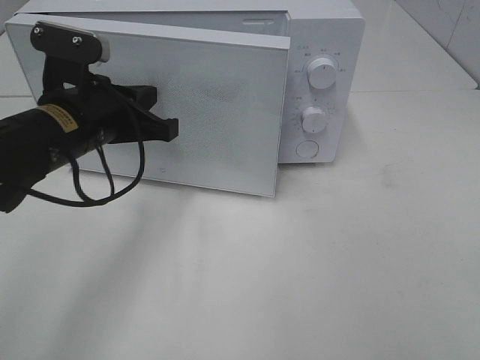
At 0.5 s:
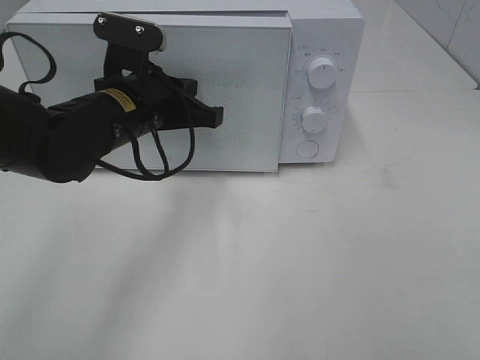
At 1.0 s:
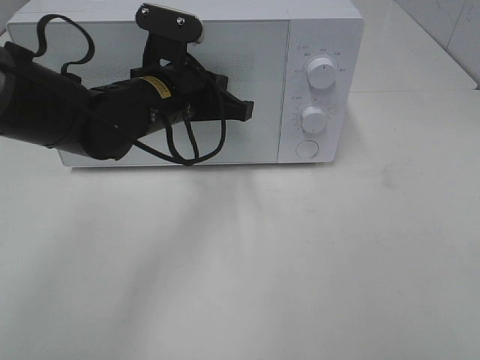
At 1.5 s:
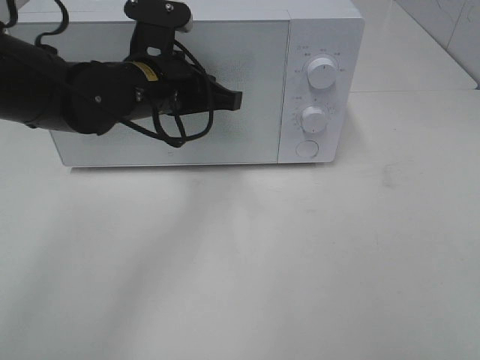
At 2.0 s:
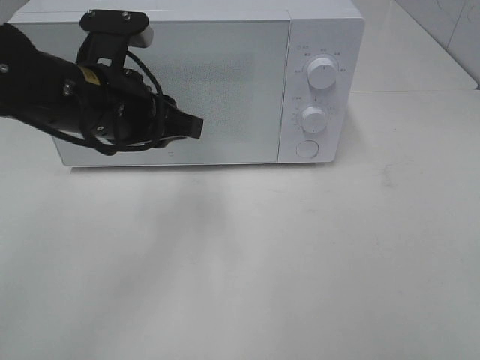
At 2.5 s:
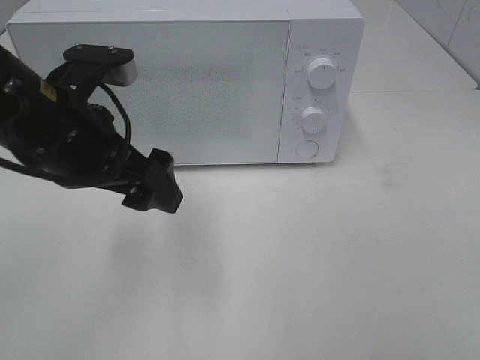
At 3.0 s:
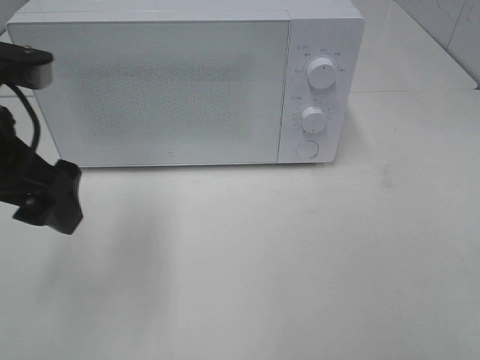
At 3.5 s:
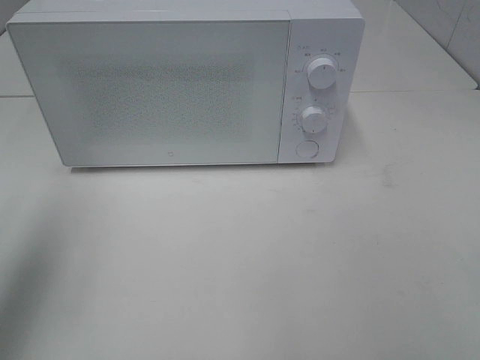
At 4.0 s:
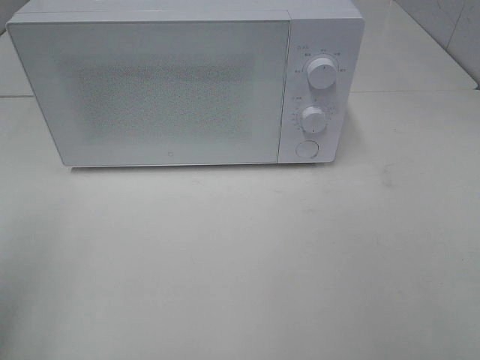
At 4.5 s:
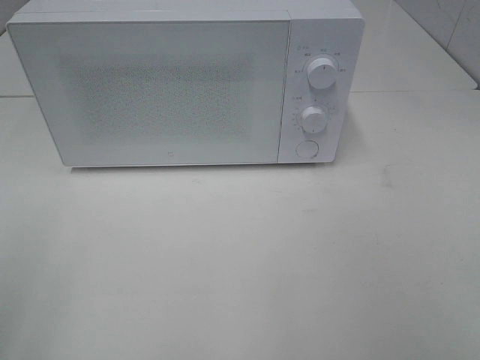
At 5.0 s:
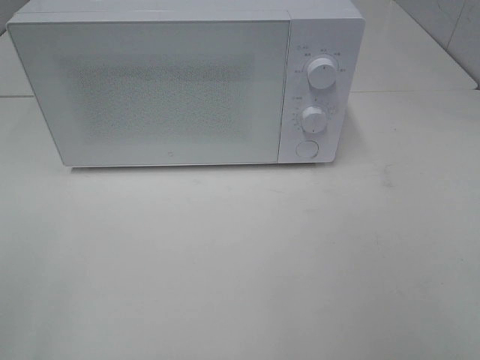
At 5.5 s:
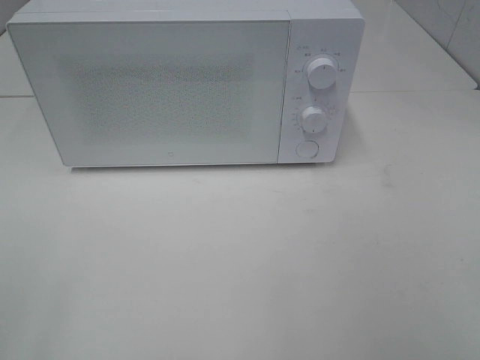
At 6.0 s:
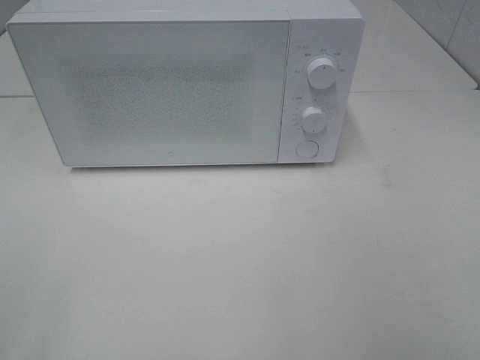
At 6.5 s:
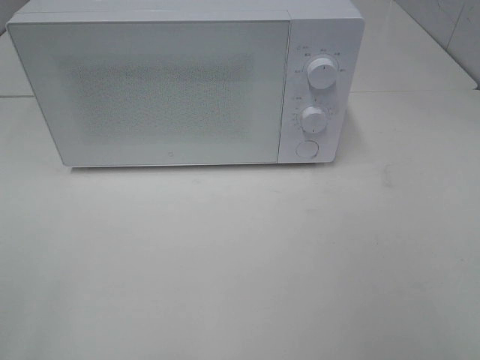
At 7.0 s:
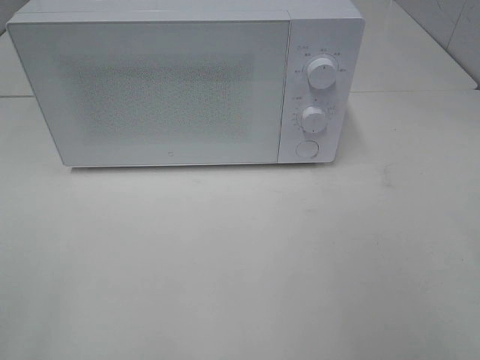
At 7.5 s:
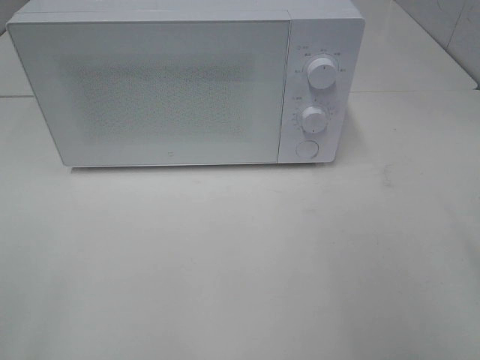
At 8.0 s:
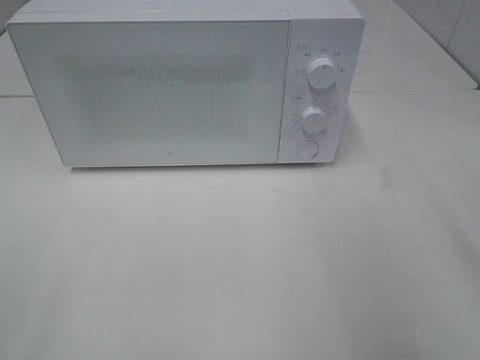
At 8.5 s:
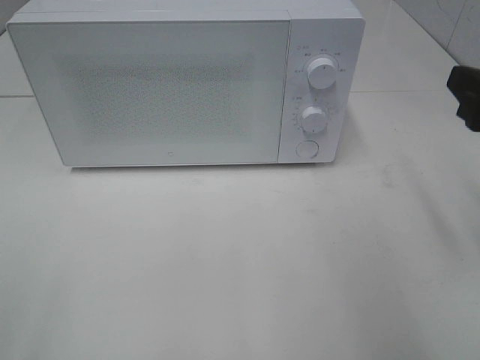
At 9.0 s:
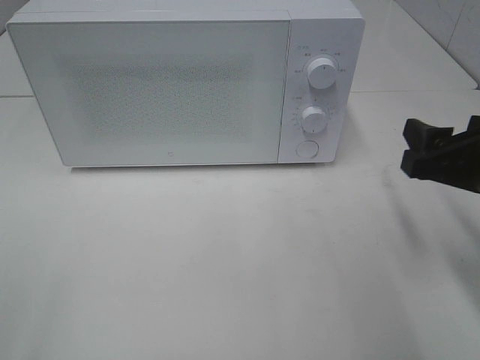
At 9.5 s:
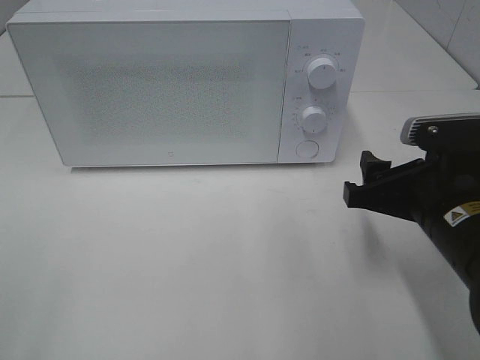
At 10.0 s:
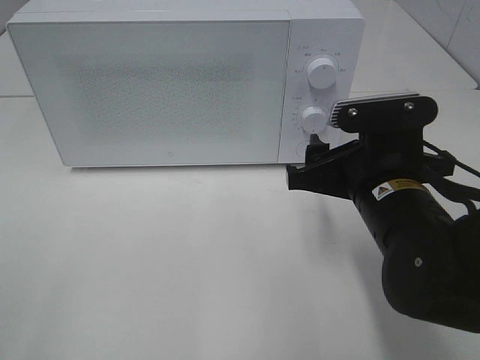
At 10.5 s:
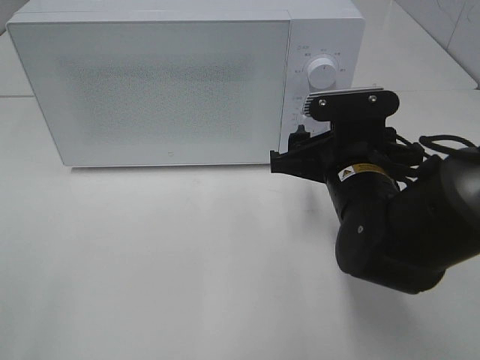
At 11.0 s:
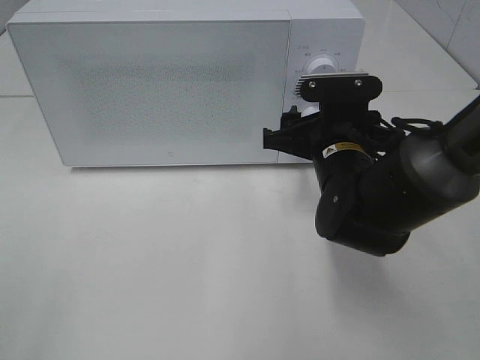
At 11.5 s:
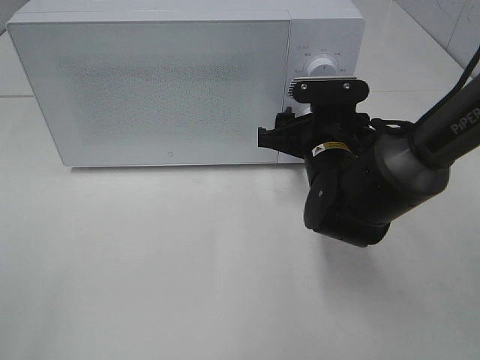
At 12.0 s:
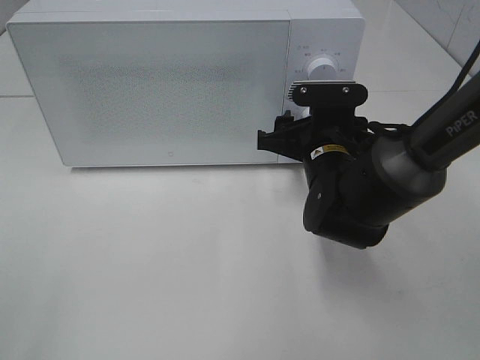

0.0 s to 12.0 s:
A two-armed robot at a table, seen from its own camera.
Task of the whole recording: Heat the burger.
0.0 to 2.0 s: The left gripper opens its fingers.
2.0 to 4.0 s: The left gripper travels to the left and backward by roughly 25 cm, and opens.
8.0 to 10.0 s: The right gripper goes roughly 20 cm to the left, downward and forward.
10.0 to 12.0 s: The right gripper shifts some 10 cm forward.

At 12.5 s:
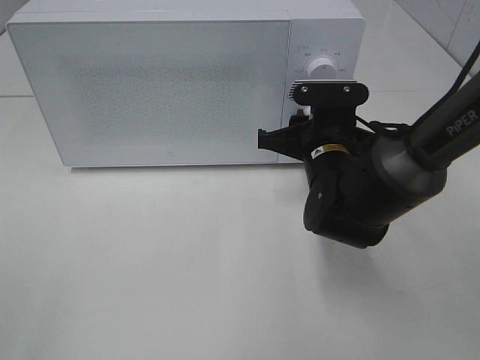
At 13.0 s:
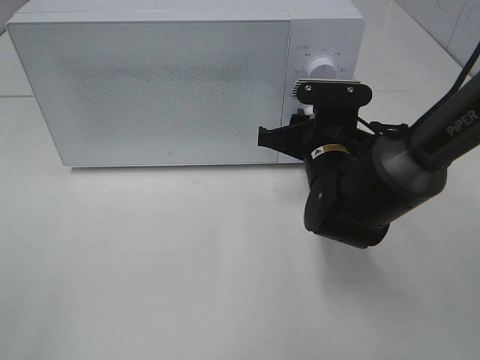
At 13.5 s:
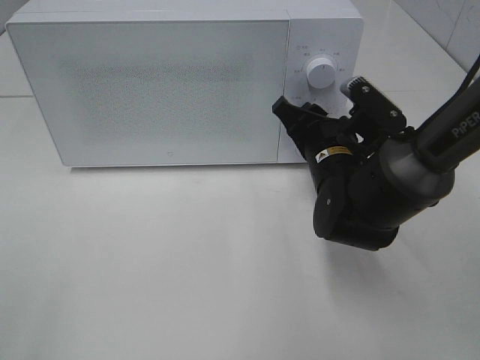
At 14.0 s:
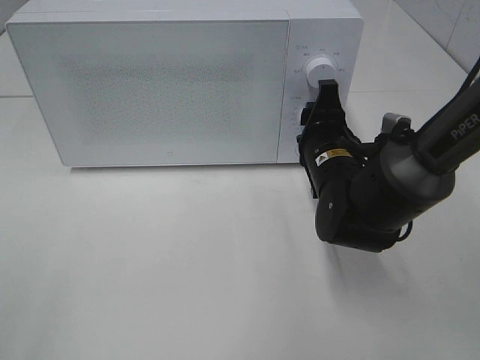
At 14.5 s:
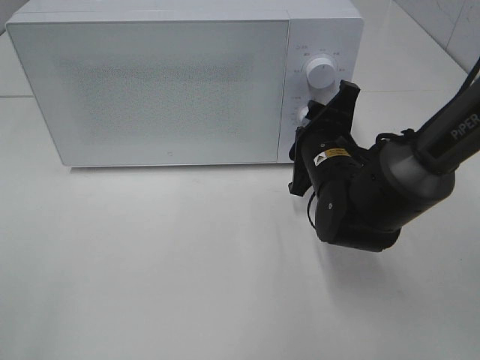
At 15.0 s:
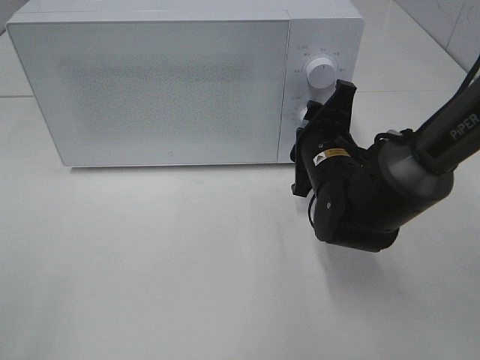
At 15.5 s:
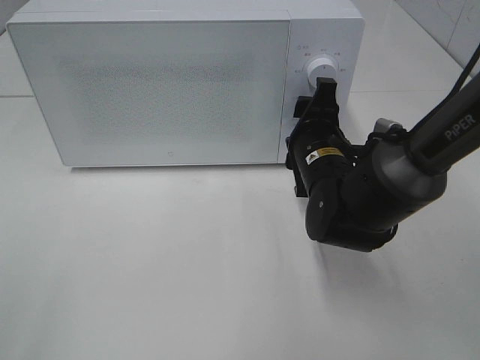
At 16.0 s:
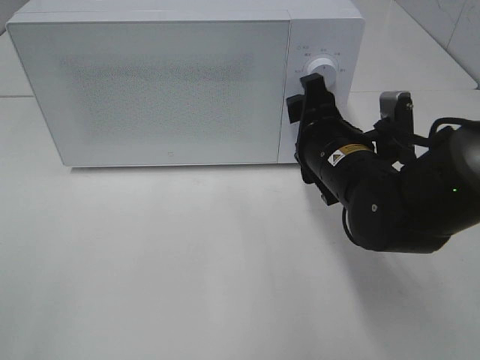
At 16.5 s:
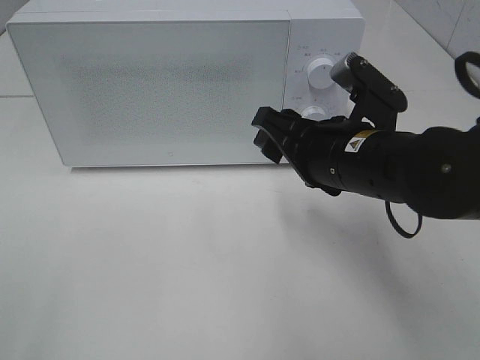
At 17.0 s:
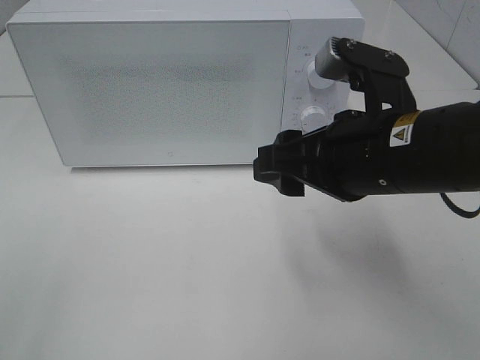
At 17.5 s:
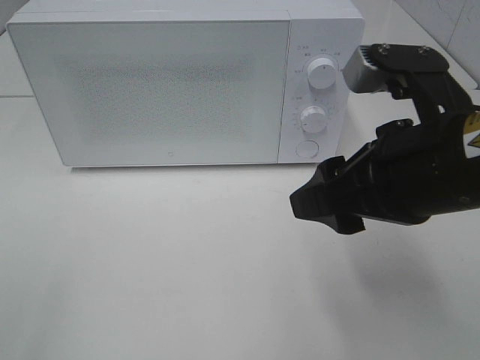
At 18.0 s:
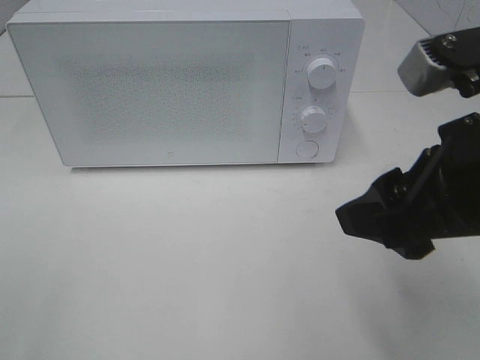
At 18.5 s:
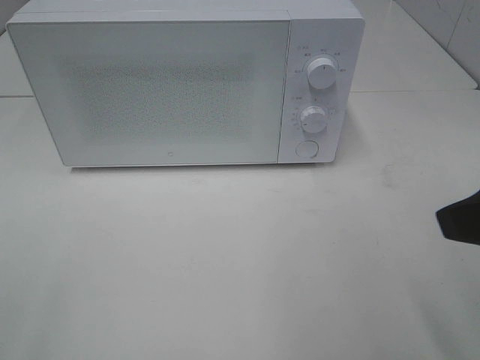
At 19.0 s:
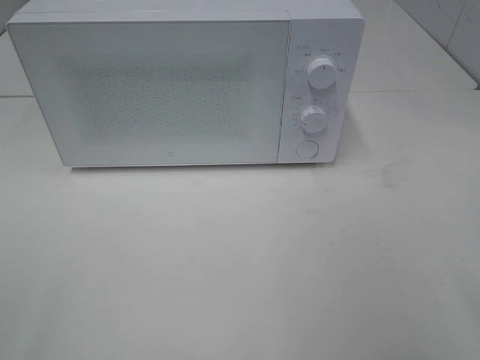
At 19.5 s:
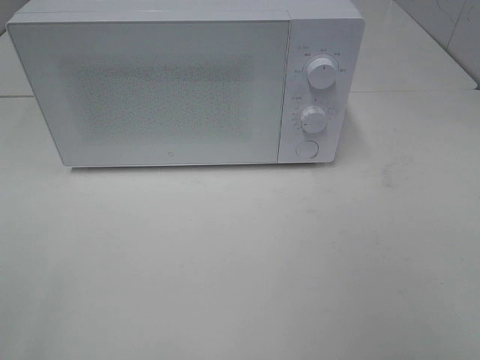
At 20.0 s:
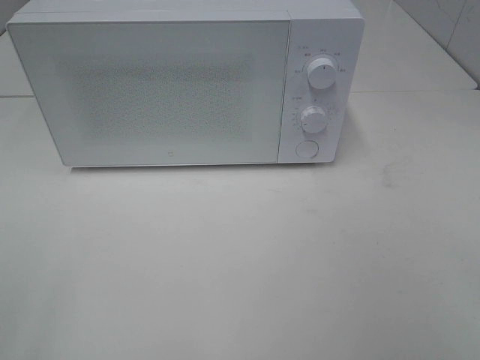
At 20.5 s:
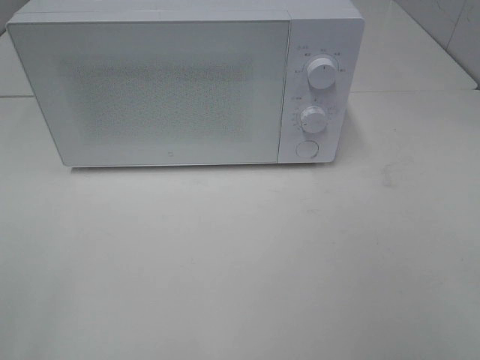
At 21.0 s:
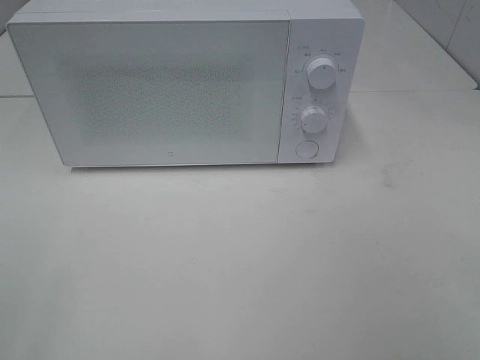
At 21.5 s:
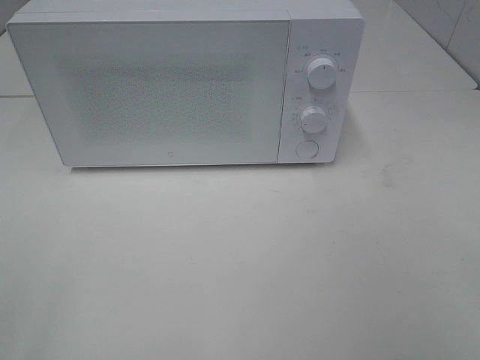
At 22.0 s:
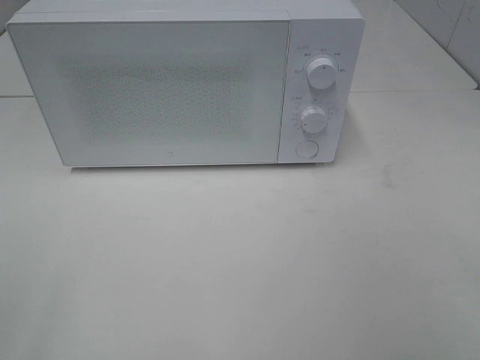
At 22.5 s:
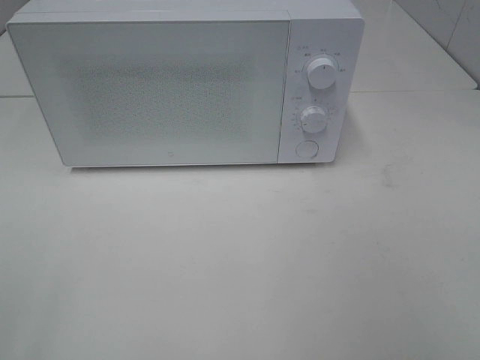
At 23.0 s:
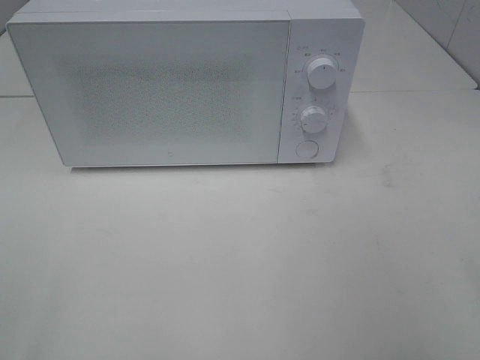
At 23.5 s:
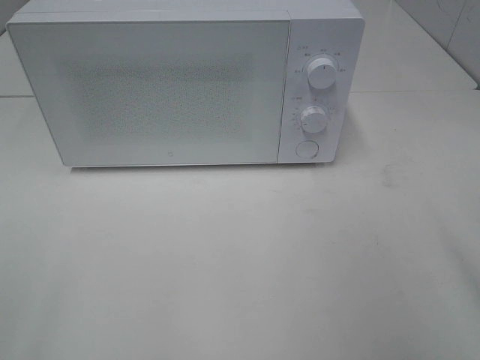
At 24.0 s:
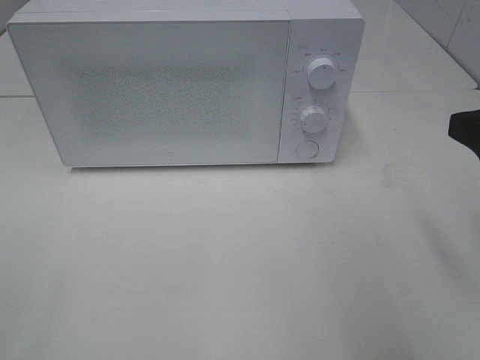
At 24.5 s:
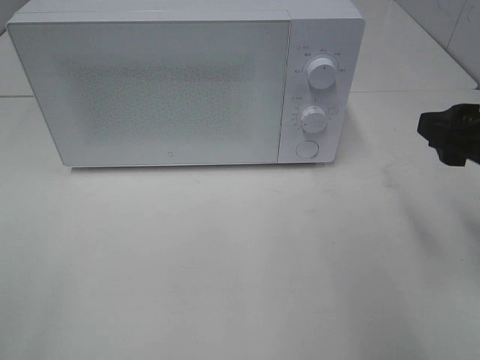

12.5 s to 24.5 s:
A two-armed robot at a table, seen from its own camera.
Task of the whole recording: Heat the burger.
Step, 12.5 to 15.5 s: Right hand: twist timer button.
14.5 to 16.5 s: The right gripper shifts about 10 cm backward and upward.
16.5 to 18.5 s: The right gripper heads backward, to the right and upward, covering about 20 cm.
18.5 to 20.5 s: The right gripper travels backward and to the right by about 15 cm.
22.5 to 24.5 s: The right gripper is displaced forward and downward by some 20 cm.

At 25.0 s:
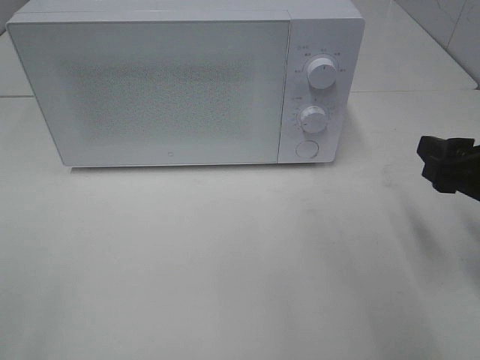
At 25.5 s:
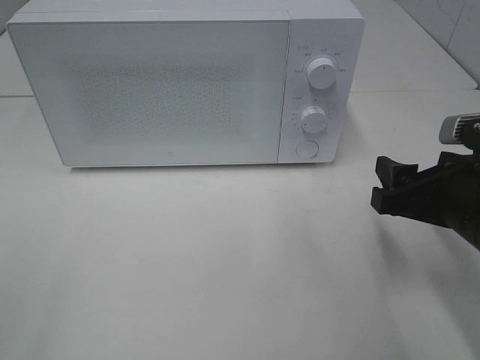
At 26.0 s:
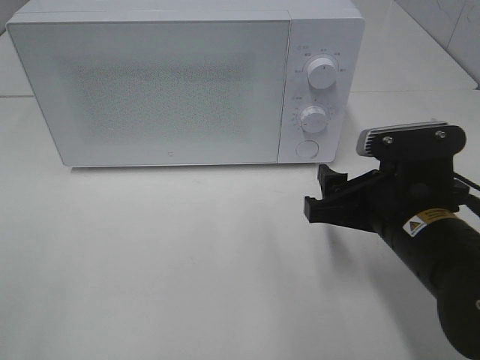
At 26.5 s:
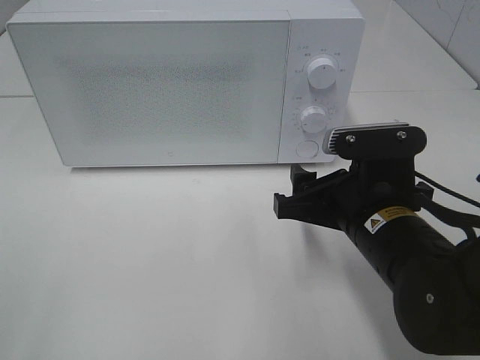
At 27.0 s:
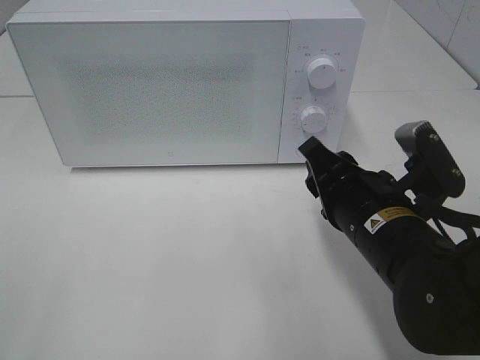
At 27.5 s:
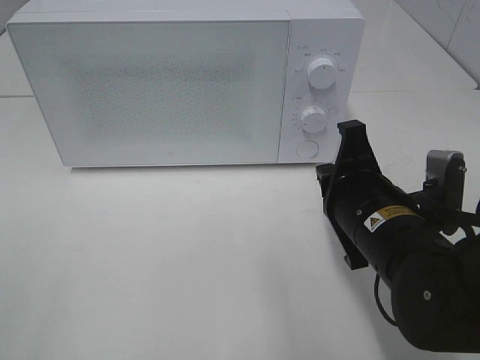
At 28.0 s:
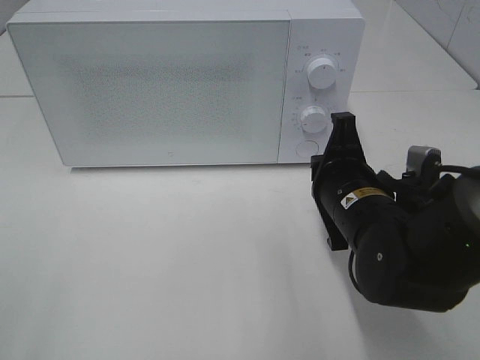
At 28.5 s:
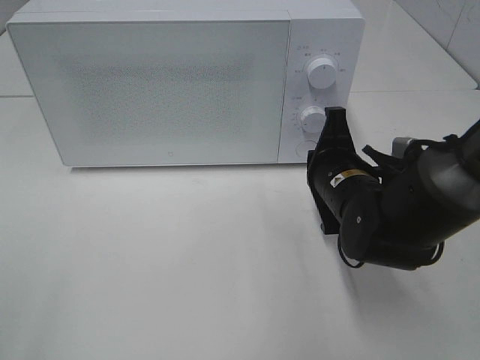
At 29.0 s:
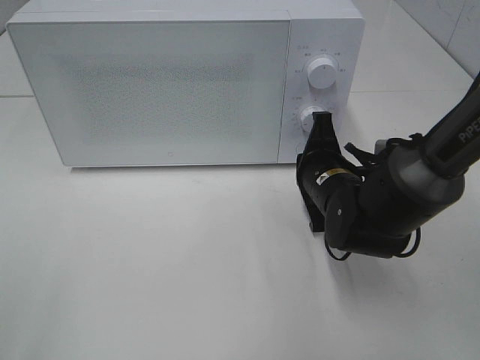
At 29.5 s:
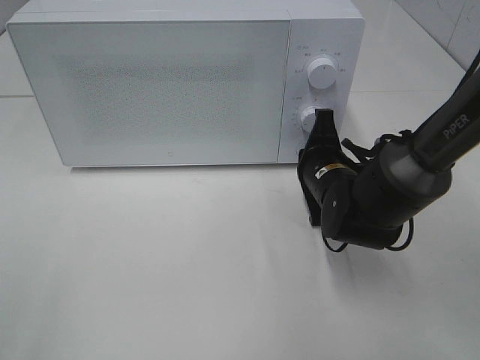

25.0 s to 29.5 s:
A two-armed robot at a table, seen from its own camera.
Task of the whole recording: Heat the burger.
25.0 to 27.0 s: The right gripper shifts approximately 15 cm to the left, and closes its fingers.
27.0 to 29.5 s: The right gripper shifts some 15 cm forward and downward, and closes its fingers.
